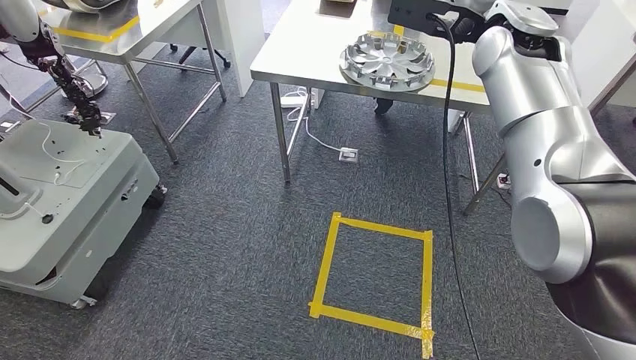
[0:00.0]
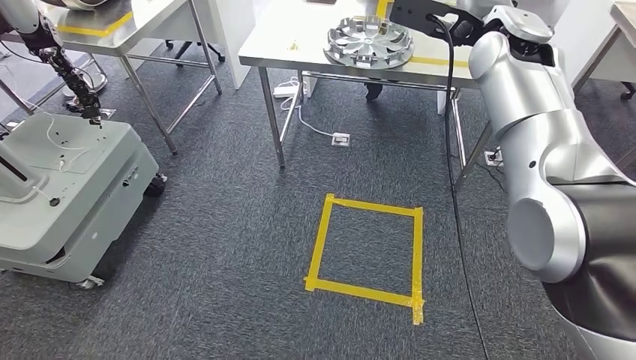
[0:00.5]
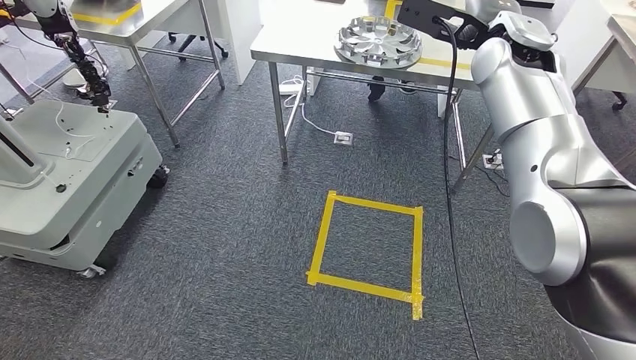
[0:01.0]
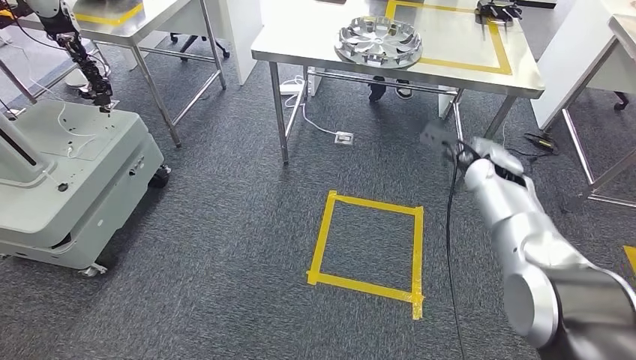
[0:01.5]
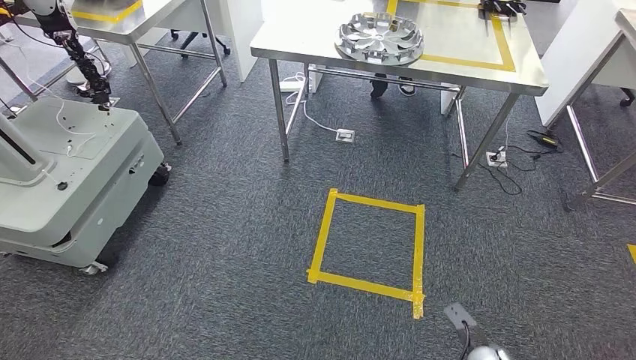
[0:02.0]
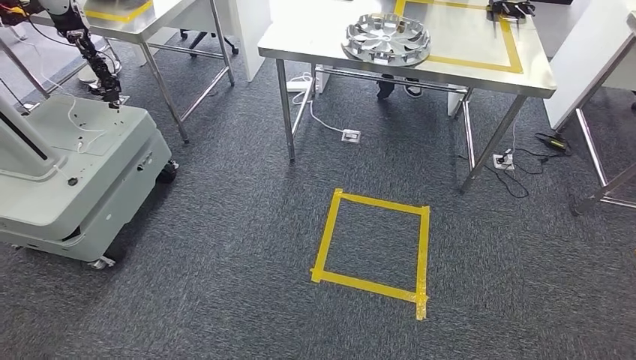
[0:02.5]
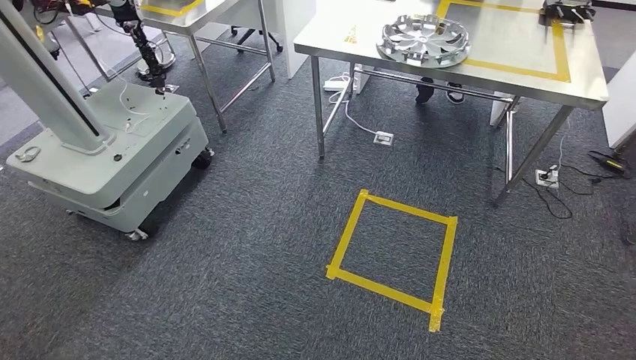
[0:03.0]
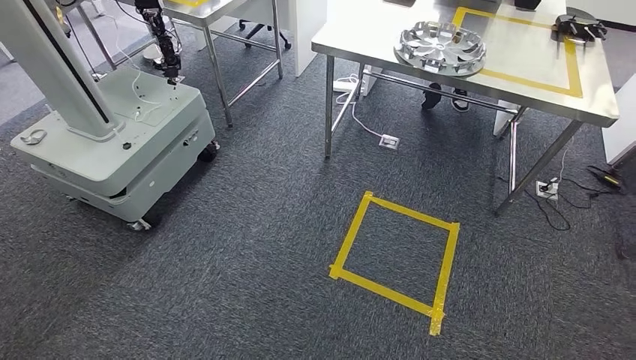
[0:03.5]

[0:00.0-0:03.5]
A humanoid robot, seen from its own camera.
Step, 0:00.0 to 0:03.5: Return to the initial position at the workbench.
